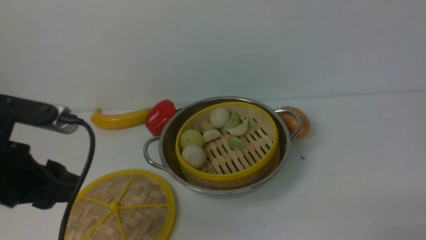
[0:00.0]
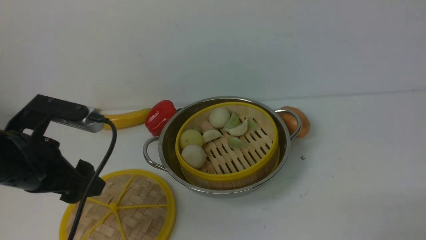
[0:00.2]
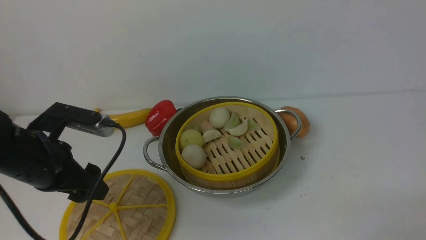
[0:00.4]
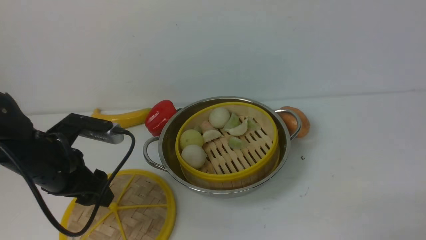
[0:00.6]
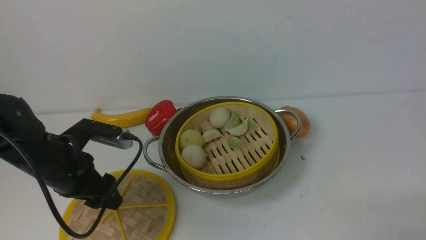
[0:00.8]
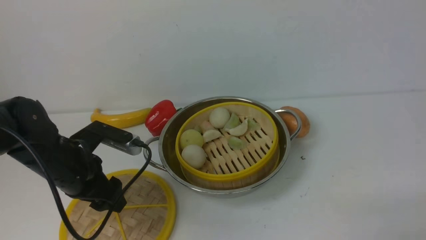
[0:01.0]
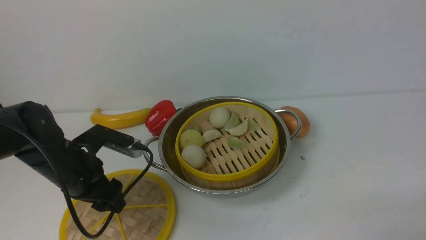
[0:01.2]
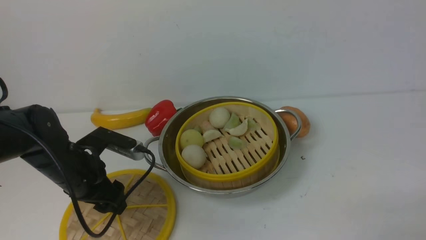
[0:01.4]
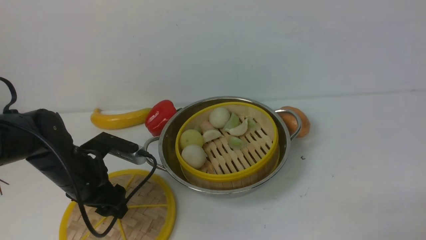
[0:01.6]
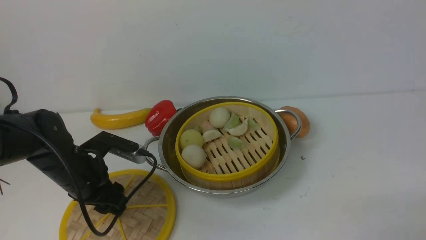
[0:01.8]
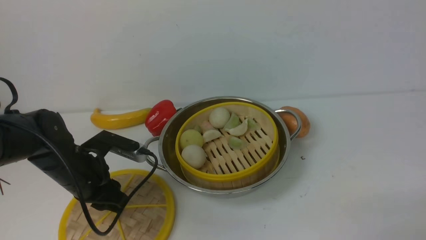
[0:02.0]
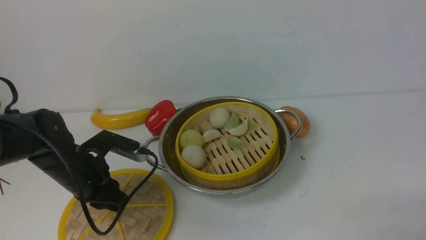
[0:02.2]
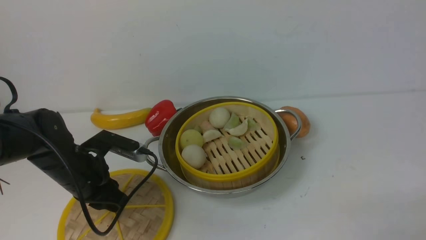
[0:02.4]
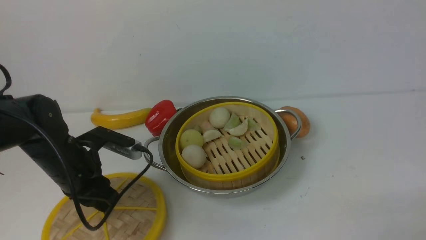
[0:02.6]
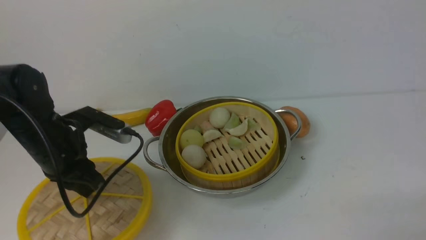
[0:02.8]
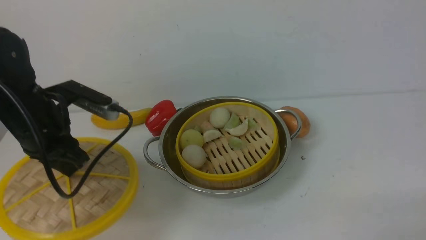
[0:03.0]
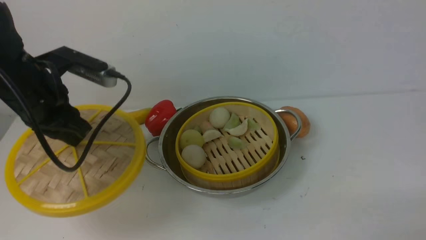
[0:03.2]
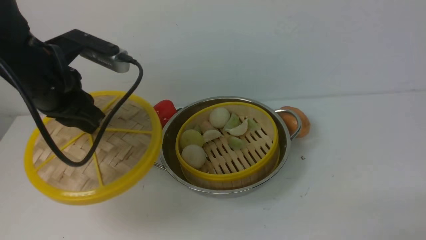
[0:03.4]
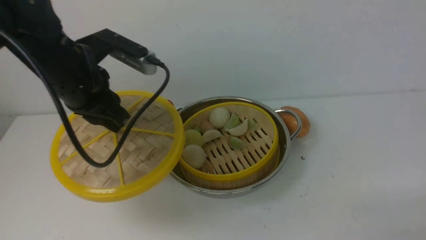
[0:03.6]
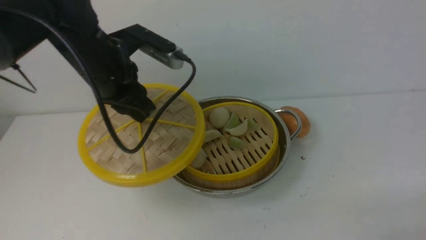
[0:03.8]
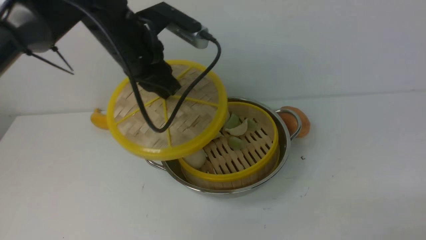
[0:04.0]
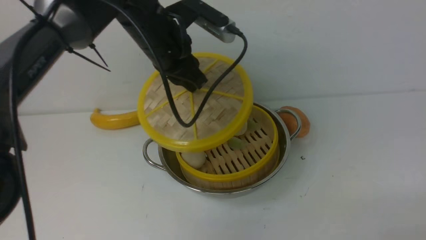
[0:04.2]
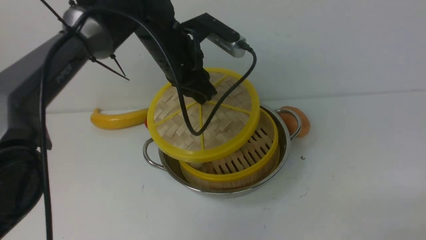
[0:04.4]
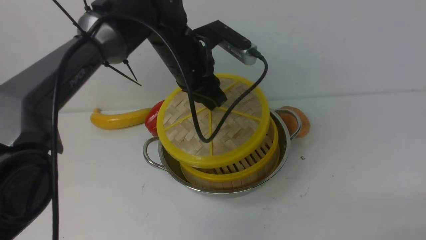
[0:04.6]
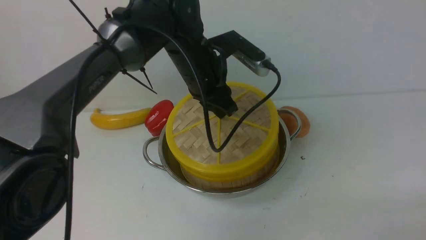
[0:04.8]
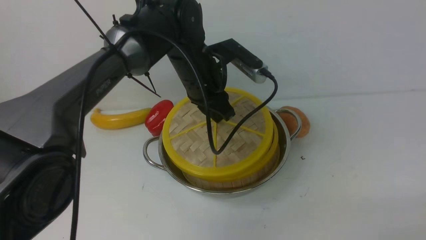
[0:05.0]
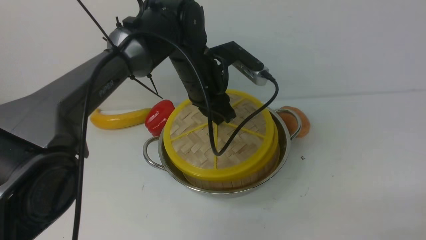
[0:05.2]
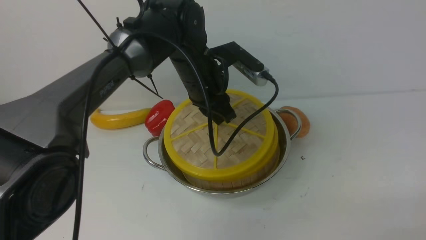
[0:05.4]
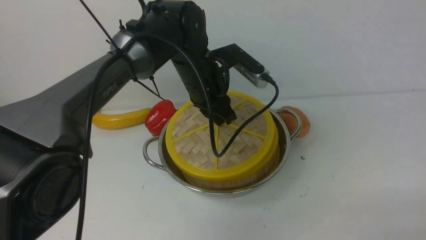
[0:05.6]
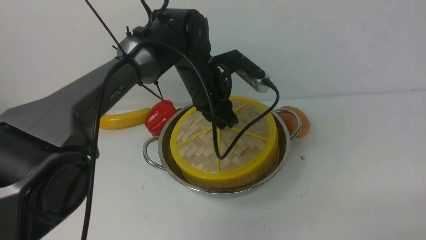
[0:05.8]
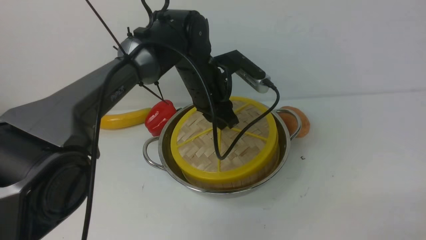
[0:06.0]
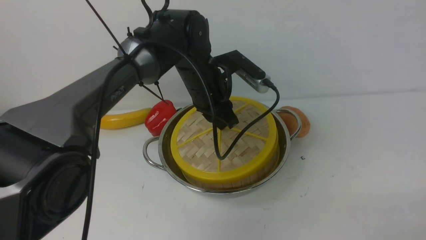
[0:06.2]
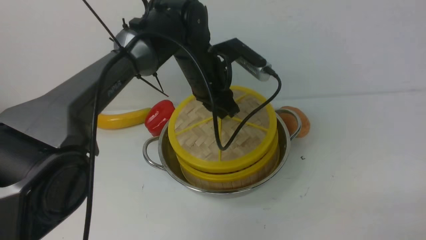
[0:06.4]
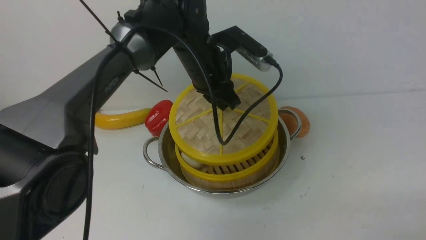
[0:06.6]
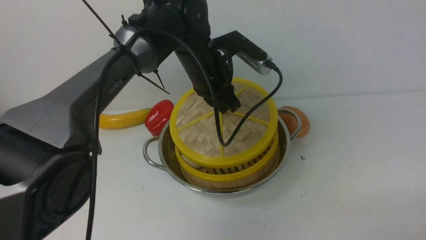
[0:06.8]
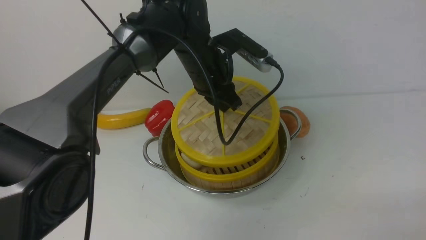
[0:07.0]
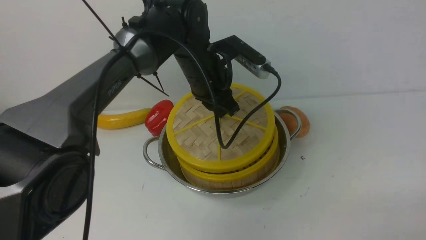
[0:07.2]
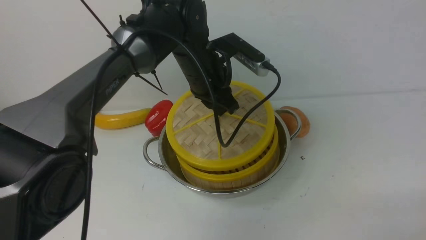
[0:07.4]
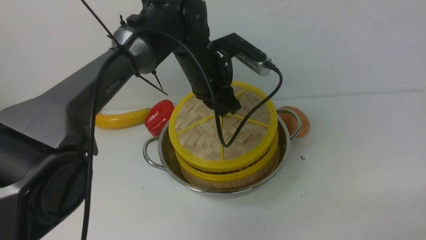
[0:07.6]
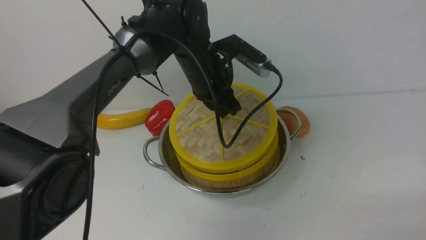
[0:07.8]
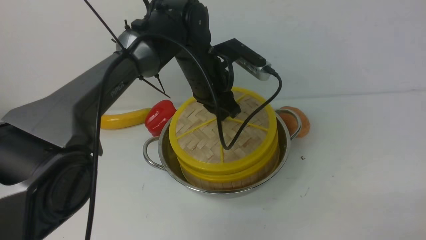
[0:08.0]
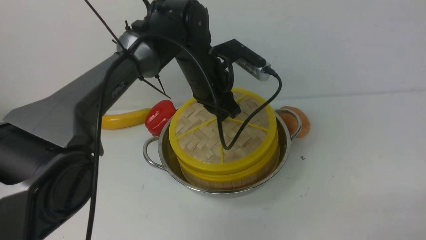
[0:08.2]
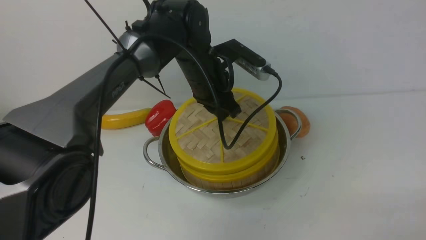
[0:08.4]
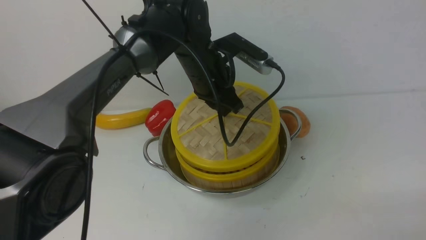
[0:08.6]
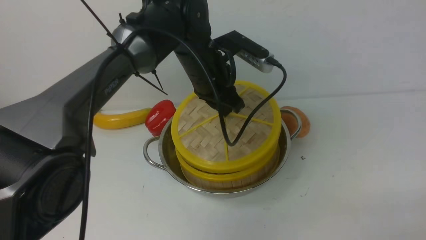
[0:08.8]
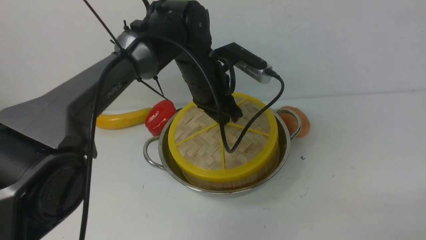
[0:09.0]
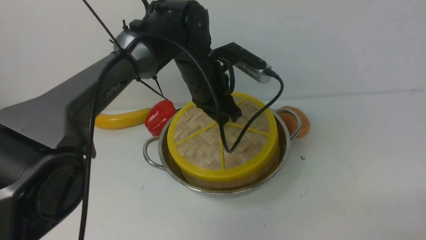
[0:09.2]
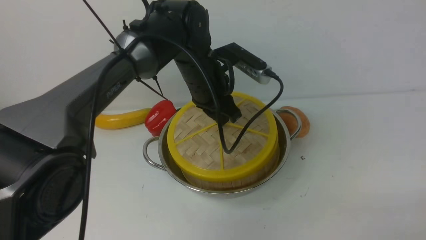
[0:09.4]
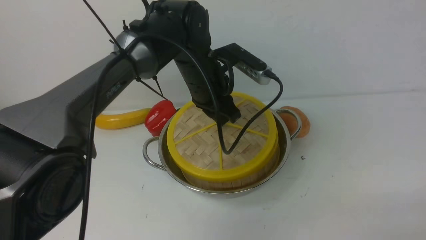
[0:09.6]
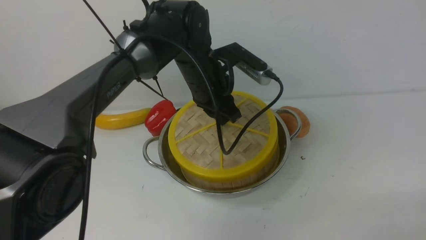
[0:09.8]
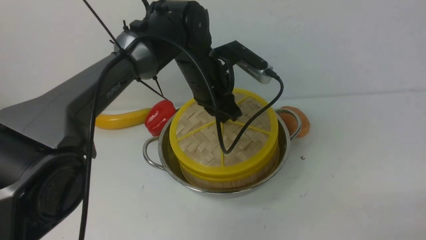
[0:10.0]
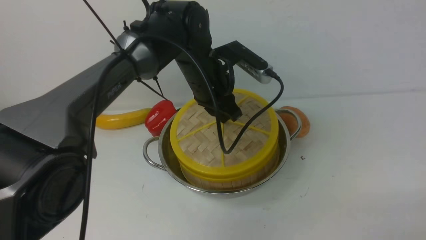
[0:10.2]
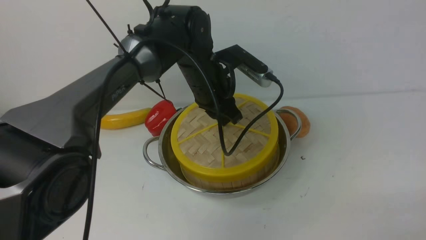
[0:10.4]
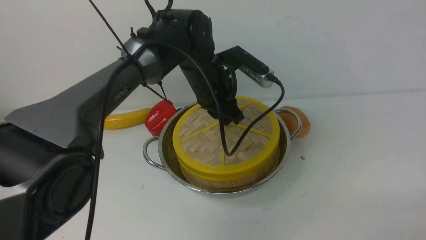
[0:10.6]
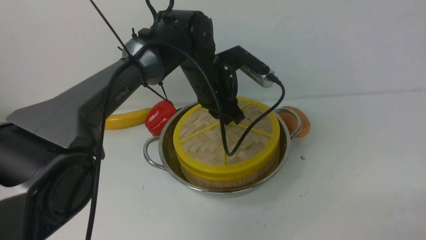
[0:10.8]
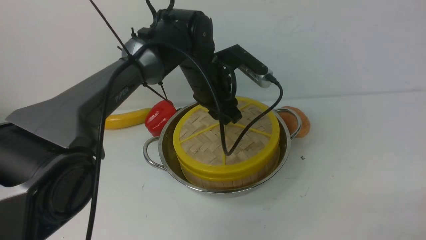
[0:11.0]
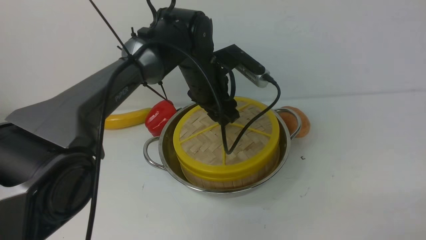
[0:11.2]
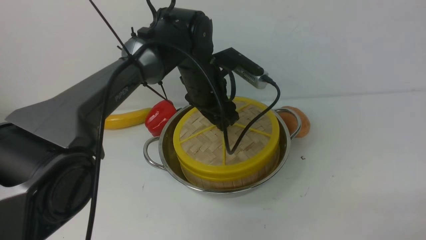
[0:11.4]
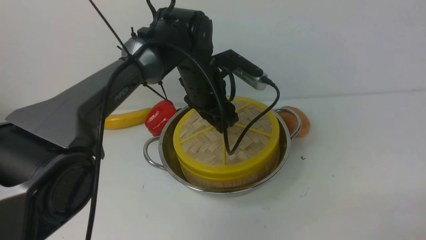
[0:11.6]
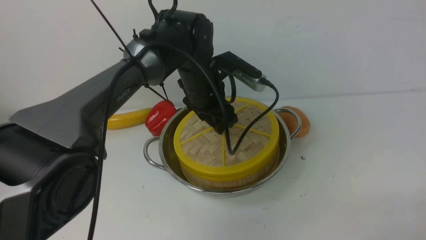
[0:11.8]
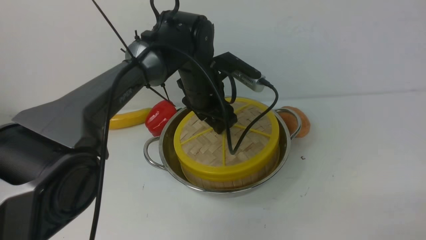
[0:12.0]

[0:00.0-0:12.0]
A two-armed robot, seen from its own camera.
Task of the whole recording: place the steamer in the pot on the white table, and put the lid on the steamer.
Step, 0:00.0 to 0:03.0: use the left arm to lift the lid of the steamer.
0:00.0 to 0:01.6: The left gripper goes some 20 cm downward and forward.
0:01.6 to 0:03.0: The left gripper is displaced upward by approximately 10 cm, and closes.
0:03.0 to 0:04.4: The left gripper shifts some 20 cm to the right and forward.
0:04.4 to 0:06.0: The left gripper travels downward by some 5 cm.
0:06.0 to 0:07.6: The grippers make only small movements.
0:07.6 to 0:09.0: Neither gripper changes place.
0:09.0 to 0:10.4: The two grippers keep their place.
0:10.4 to 0:12.0: The left gripper opens its fingers.

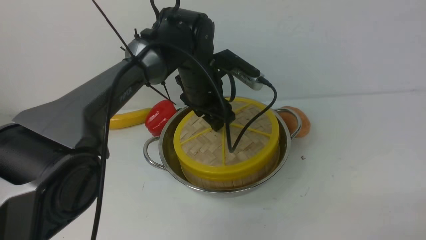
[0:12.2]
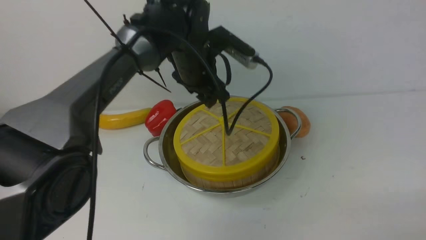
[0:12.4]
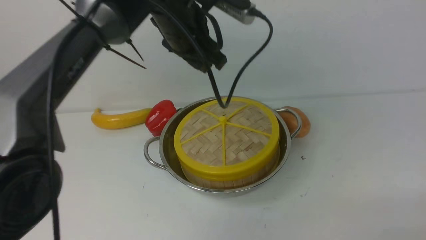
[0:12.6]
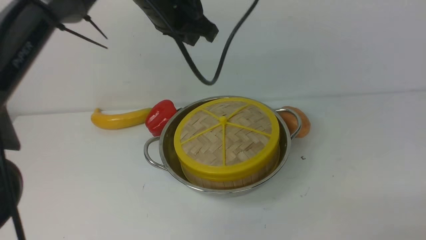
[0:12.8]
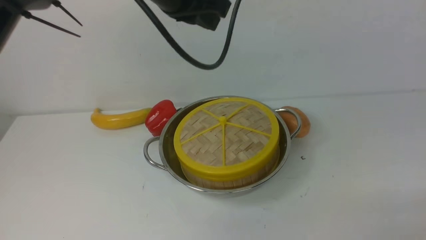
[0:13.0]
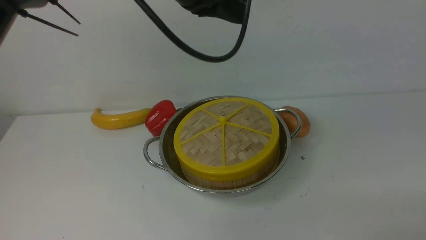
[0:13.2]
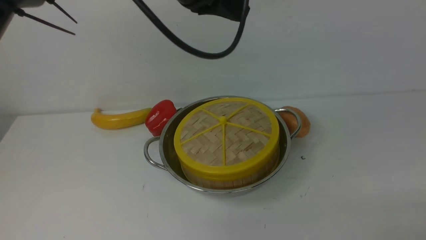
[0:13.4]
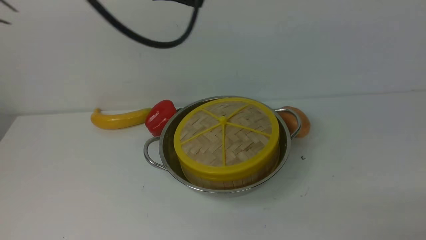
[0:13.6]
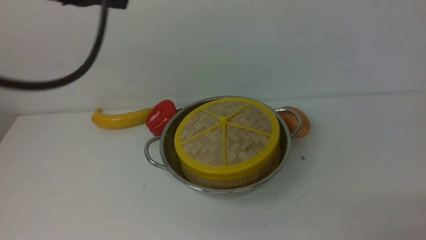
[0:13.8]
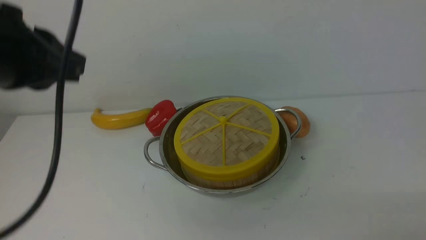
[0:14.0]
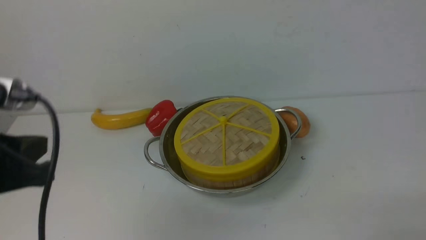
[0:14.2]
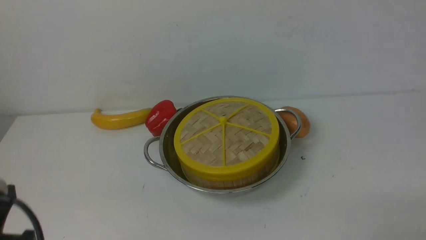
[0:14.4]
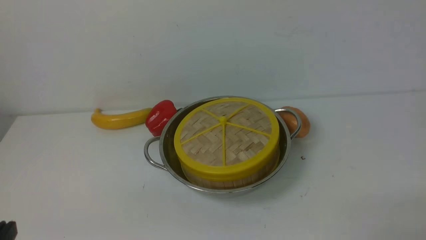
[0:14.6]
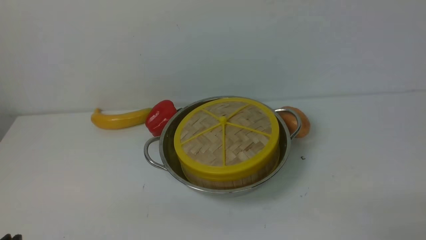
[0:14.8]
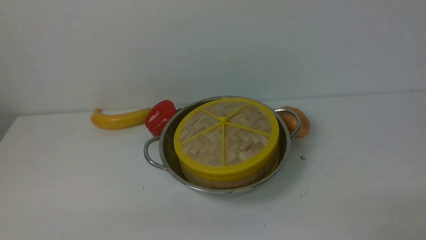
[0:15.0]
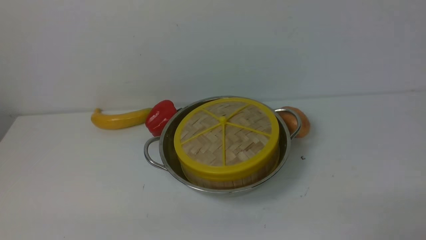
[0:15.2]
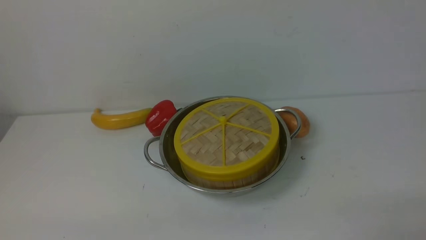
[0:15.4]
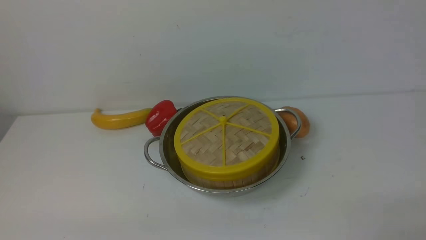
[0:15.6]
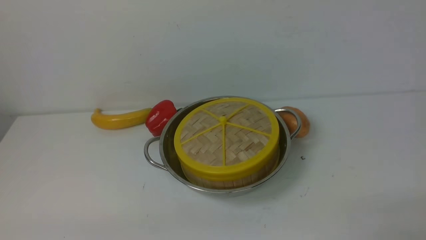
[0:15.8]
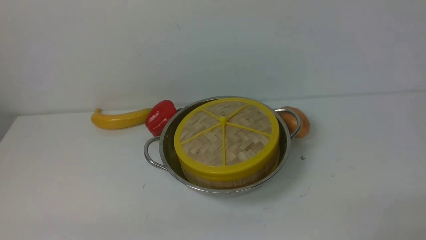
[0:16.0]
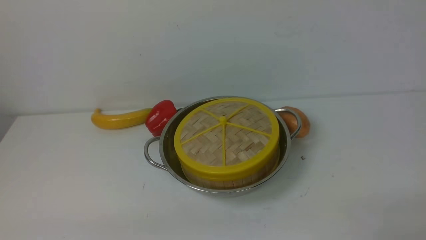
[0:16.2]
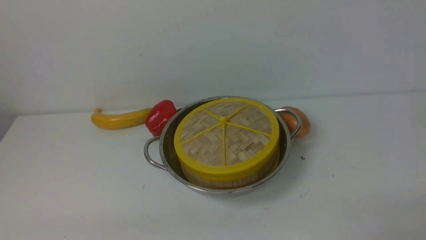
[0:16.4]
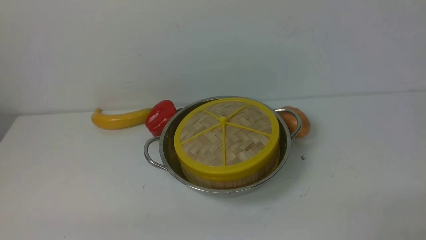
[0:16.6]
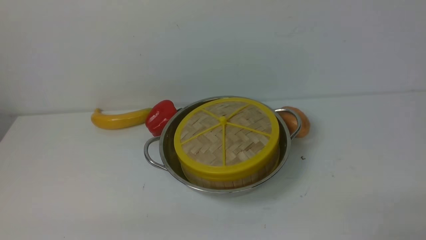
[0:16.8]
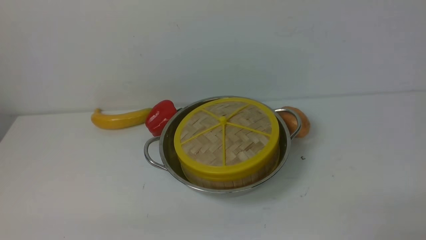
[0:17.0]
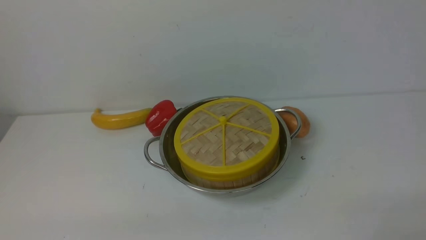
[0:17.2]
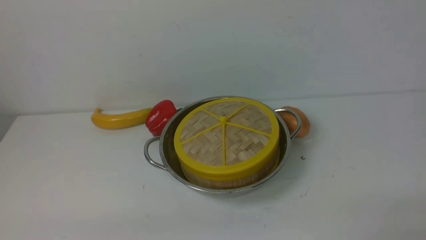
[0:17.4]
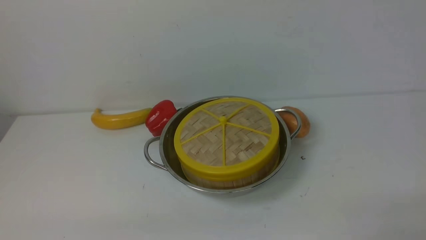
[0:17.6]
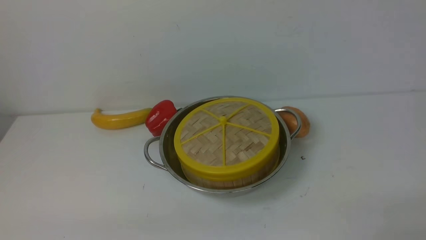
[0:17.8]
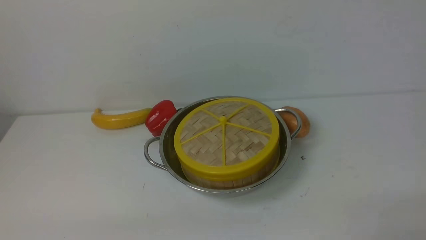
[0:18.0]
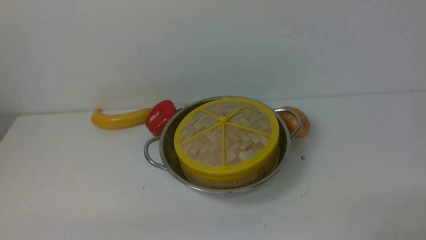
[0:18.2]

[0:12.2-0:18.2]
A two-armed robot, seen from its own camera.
Task of the whole recording: place the steamer in the pot on the white table, and put the lid on the steamer.
0:12.2 to 0:13.8: The left gripper travels upward, backward and to the left by about 30 cm, and closes.
0:13.8 to 0:15.2: The left gripper shifts some 40 cm downward and backward.
0:16.6 to 0:18.2: Both grippers stay about where they are.
